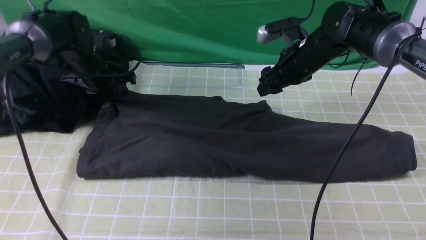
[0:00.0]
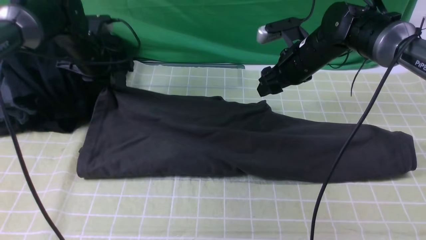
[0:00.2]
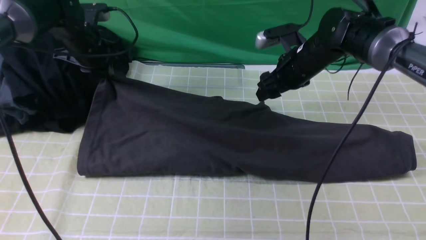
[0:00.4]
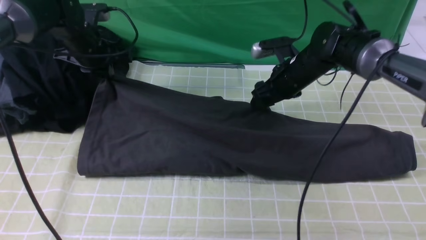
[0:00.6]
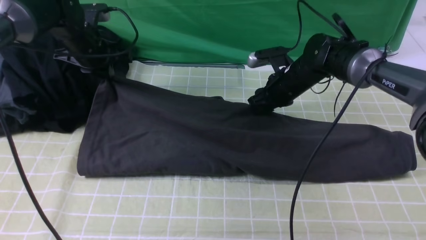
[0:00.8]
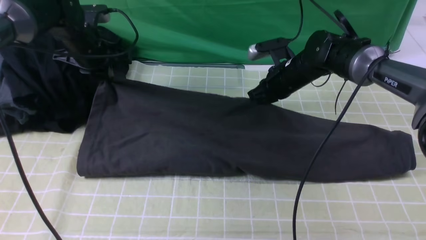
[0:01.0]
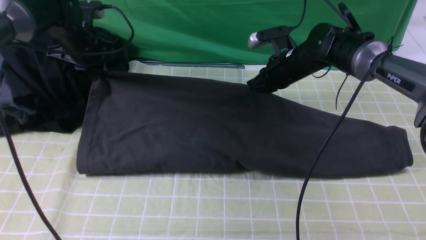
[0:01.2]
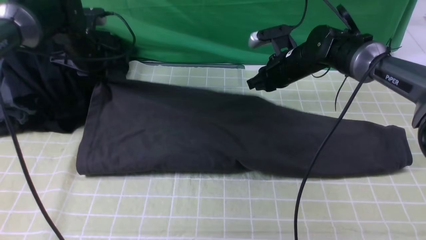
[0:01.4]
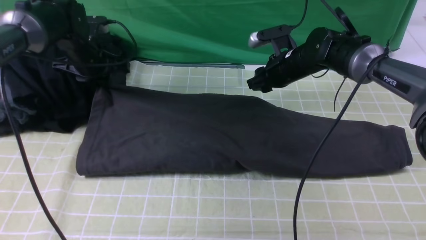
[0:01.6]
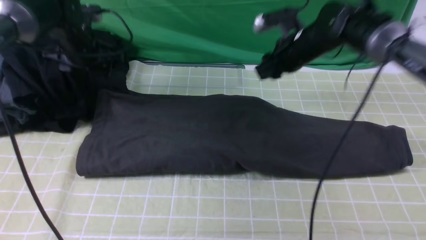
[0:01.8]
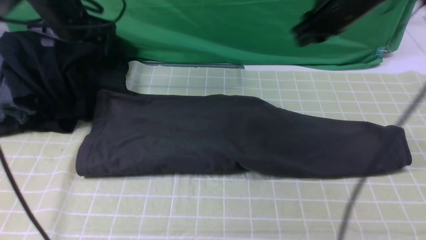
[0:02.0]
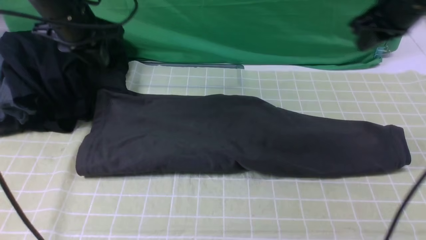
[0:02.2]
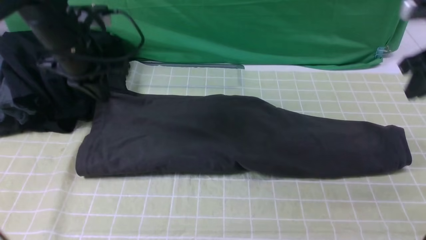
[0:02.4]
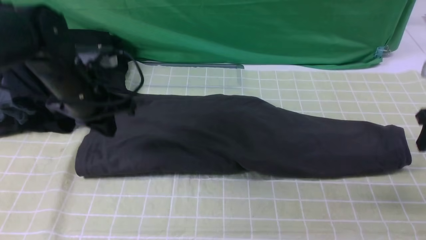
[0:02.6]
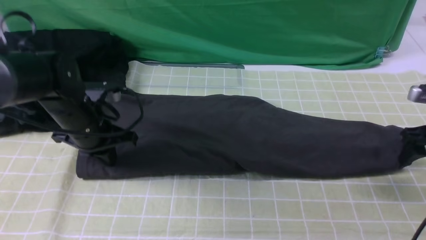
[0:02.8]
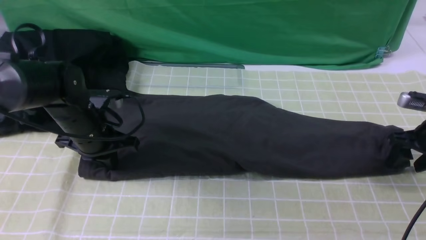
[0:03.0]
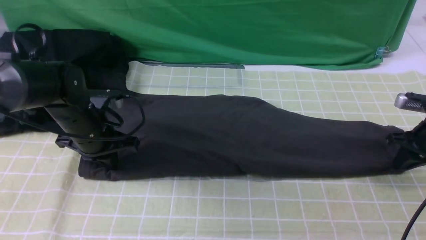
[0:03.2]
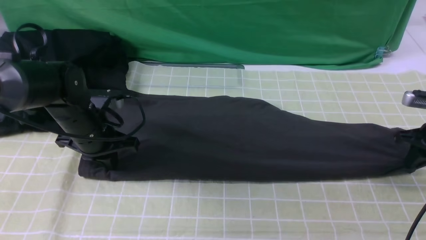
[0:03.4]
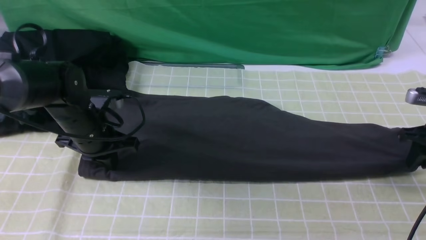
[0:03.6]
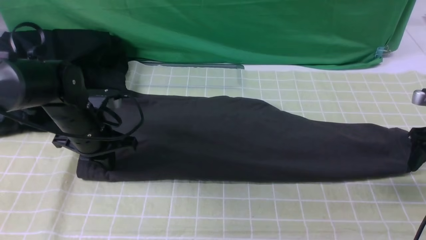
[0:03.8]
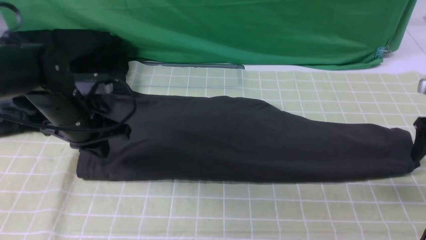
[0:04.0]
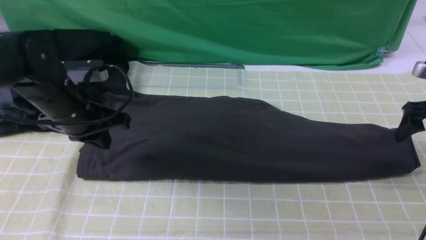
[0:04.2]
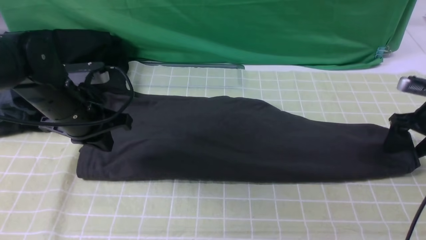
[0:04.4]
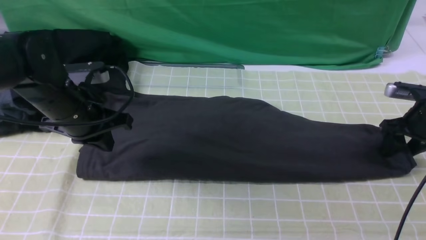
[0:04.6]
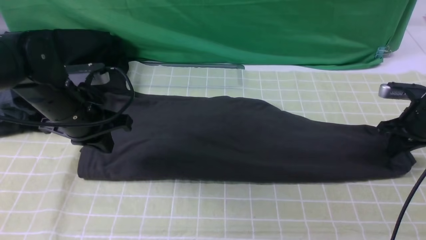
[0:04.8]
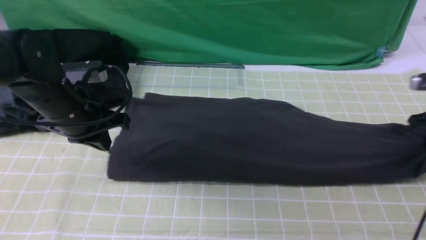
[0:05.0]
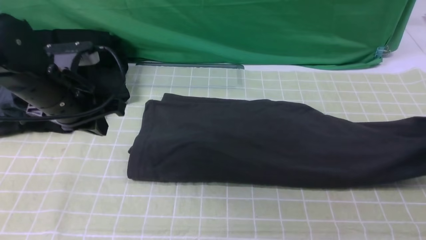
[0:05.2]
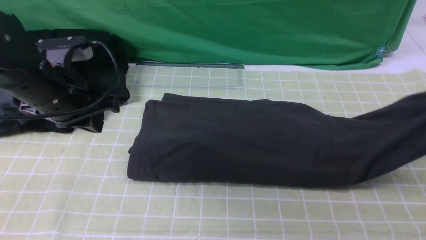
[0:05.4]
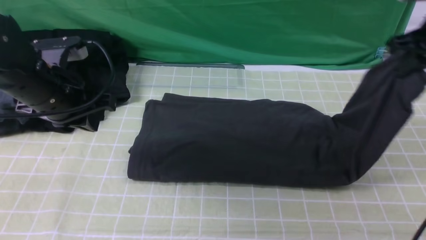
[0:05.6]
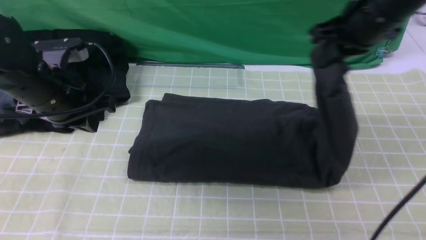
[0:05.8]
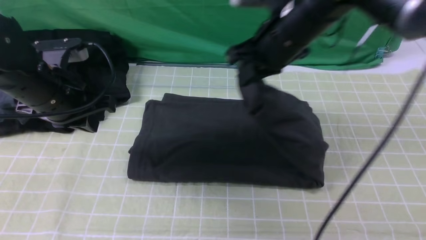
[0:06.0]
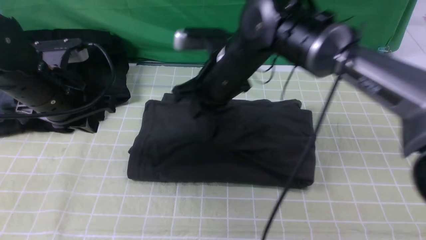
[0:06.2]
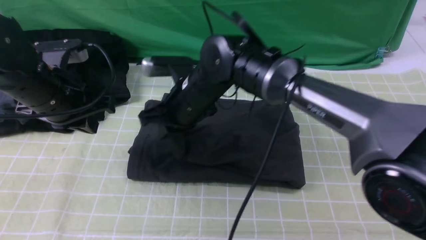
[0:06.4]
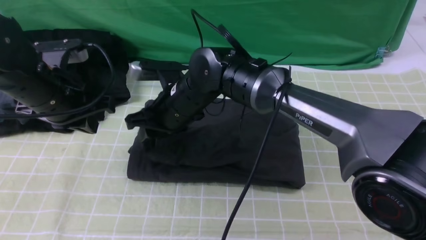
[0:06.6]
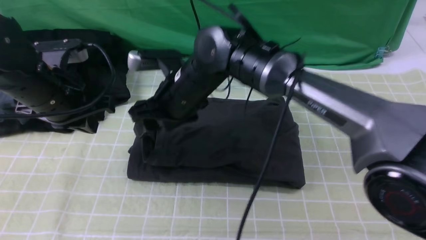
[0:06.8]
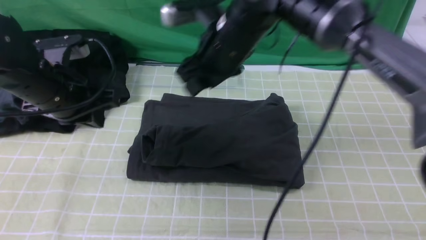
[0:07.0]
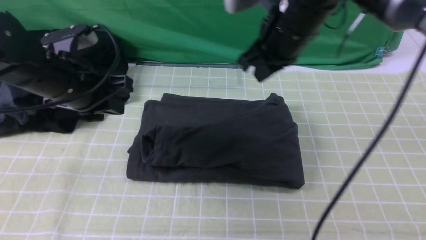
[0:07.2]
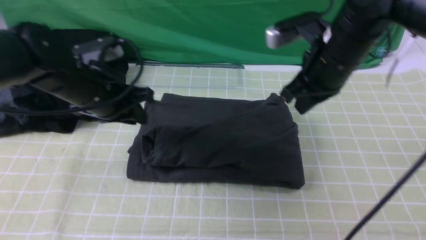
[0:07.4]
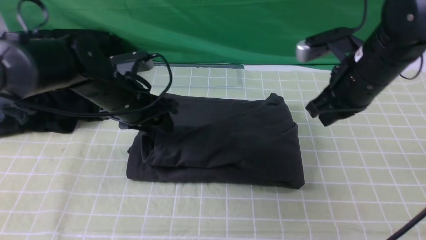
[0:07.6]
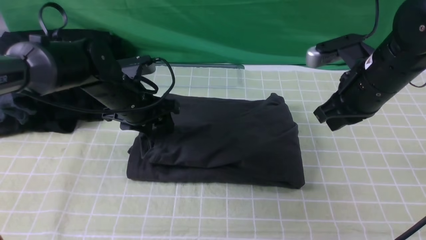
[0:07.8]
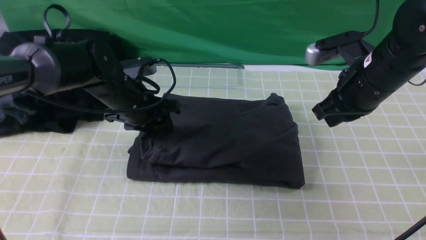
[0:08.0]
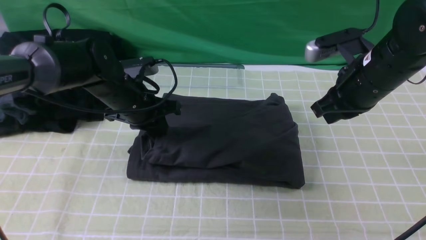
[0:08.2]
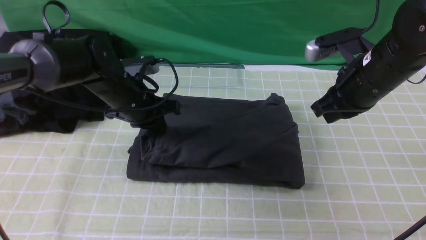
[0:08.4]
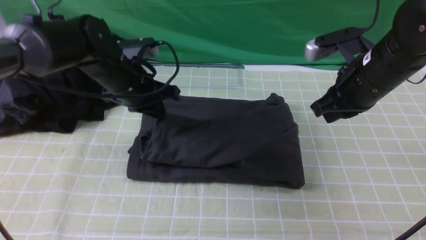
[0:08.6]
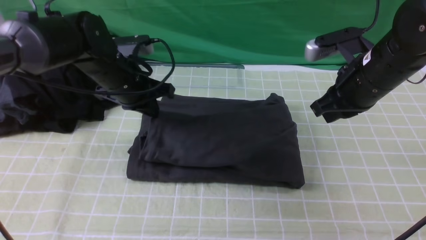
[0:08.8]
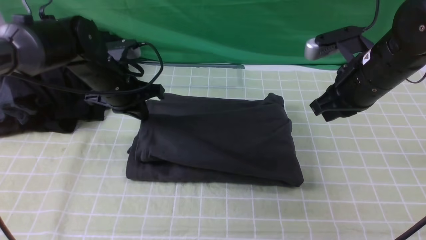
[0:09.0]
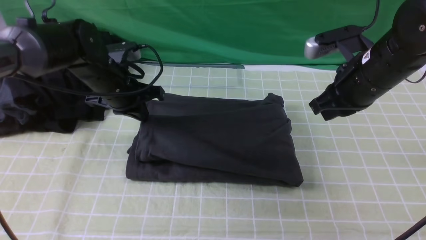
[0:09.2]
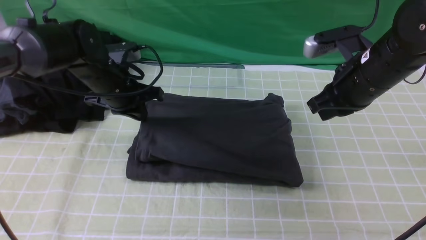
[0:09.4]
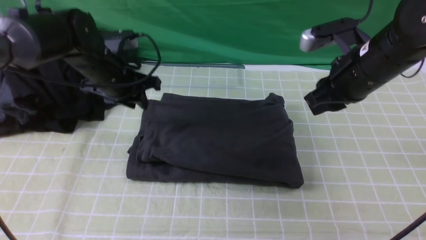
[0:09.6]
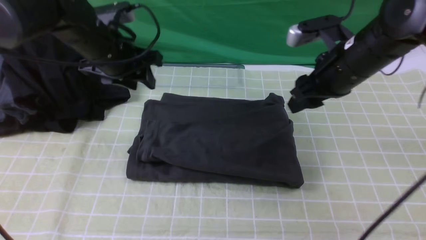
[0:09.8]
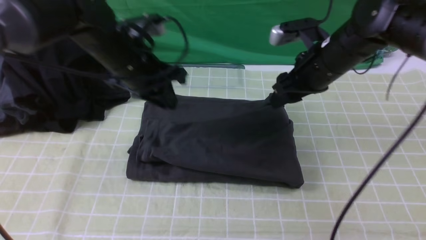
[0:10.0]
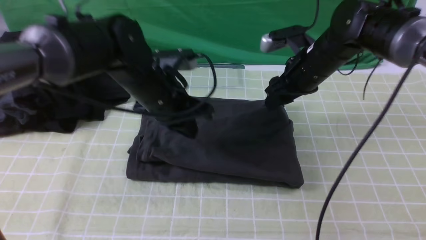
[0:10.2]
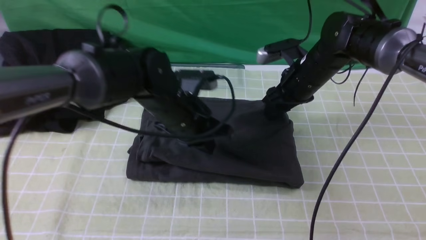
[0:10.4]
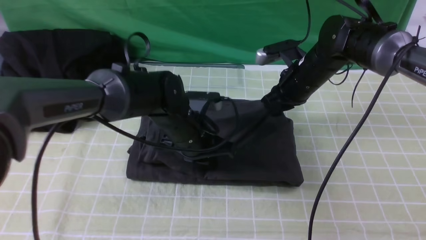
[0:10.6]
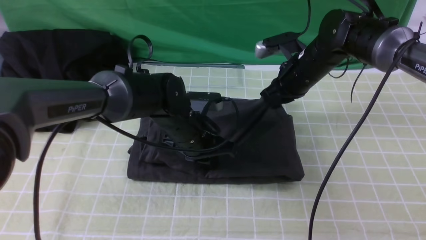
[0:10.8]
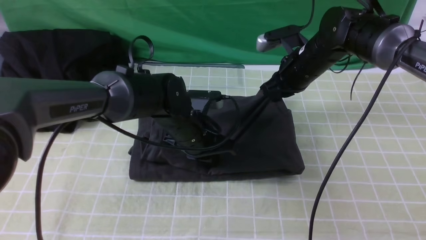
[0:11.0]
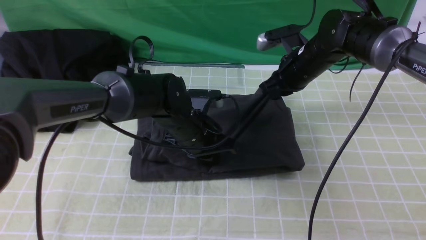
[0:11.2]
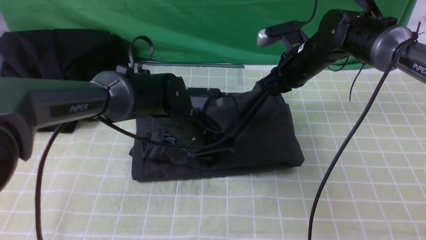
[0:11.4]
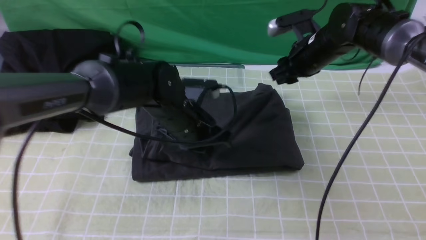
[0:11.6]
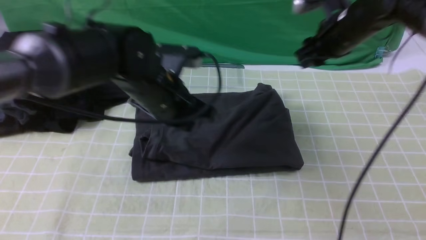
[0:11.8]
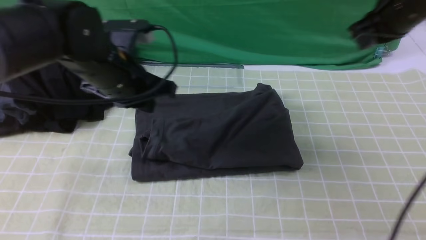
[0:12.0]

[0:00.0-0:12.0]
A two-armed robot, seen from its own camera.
Step, 0:02.0 to 0:04.6: use the right arm to clamp the right edge of the fabric.
Step, 0:05.0 to 0:06.8: use the right arm to drag the right edge of the fabric to the left and folds it over the left edge.
0:00.0 to 0:01.6: The right gripper closes.
0:01.6 to 0:03.0: The left gripper moves backward and downward, approximately 15 cm, and closes up; the right gripper is displaced to the right and backward by roughly 30 cm.
0:03.0 to 0:04.4: The right gripper closes, then opens again; the left gripper travels upward by approximately 5 cm.
0:04.4 to 0:06.0: The right gripper is displaced to the left and upward by roughly 35 cm, and closes its fingers.
0:06.0 to 0:07.6: The right gripper is displaced to the right by some 10 cm, and opens and closes again. Meanwhile the left gripper travels to the right, forward and downward by roughly 10 cm, and opens up.
0:07.6 to 0:09.0: The left gripper closes.
0:09.0 to 0:10.4: The left gripper shifts approximately 15 cm to the right and backward, and opens, then closes once more. Meanwhile the right gripper goes about 10 cm forward and downward, and opens up.
0:10.4 to 0:12.0: The right gripper heads upward and to the right, covering about 20 cm, and closes up, while the left gripper travels to the left and upward by some 10 cm.

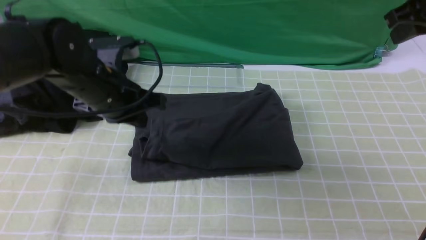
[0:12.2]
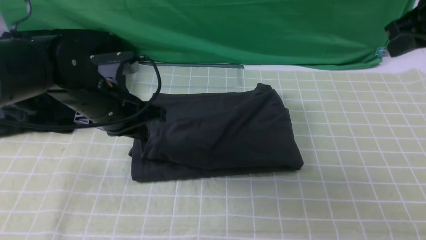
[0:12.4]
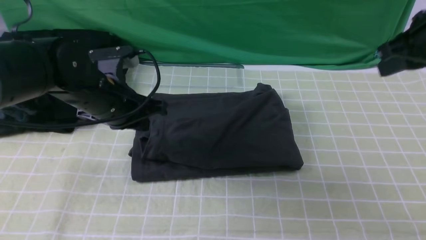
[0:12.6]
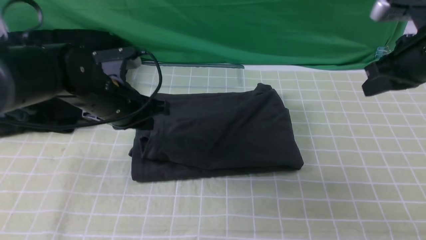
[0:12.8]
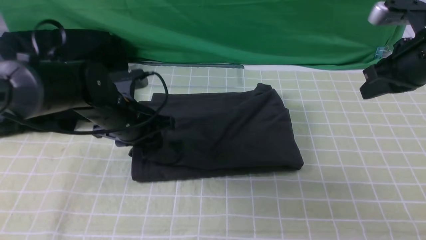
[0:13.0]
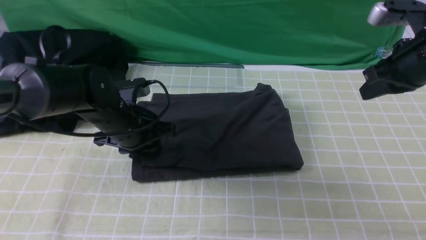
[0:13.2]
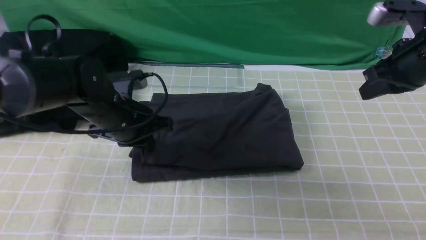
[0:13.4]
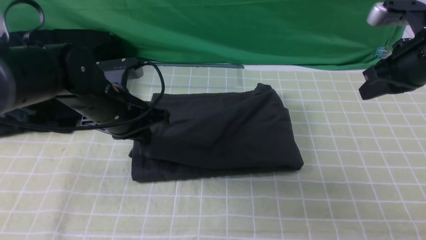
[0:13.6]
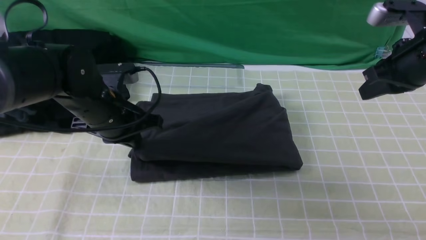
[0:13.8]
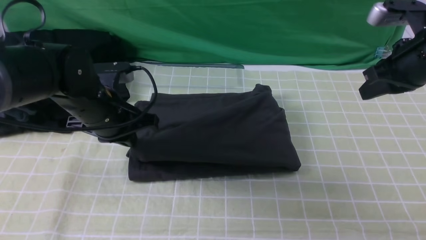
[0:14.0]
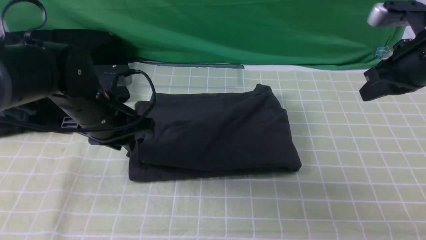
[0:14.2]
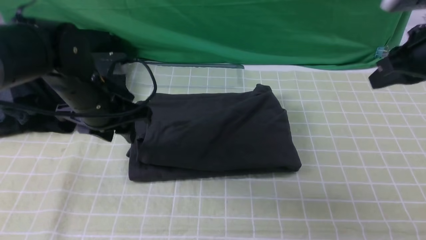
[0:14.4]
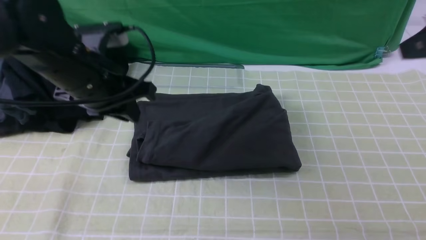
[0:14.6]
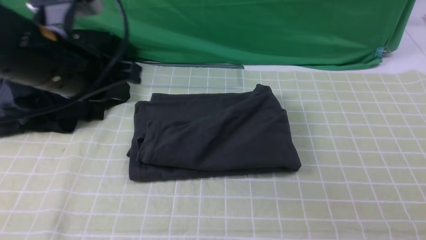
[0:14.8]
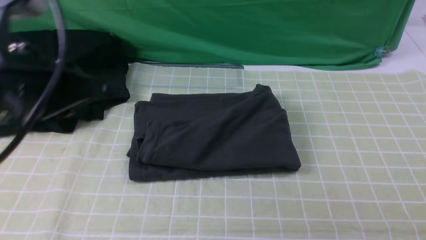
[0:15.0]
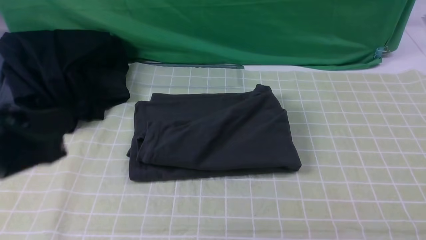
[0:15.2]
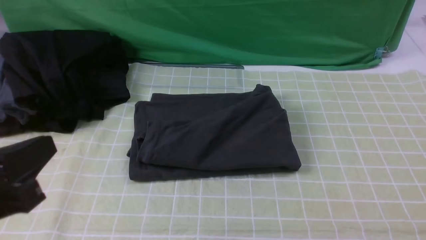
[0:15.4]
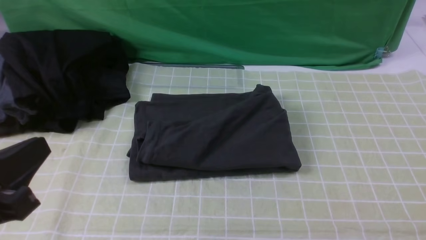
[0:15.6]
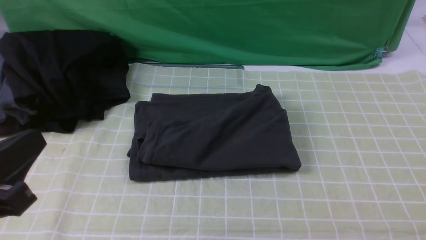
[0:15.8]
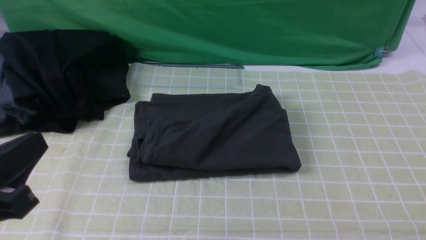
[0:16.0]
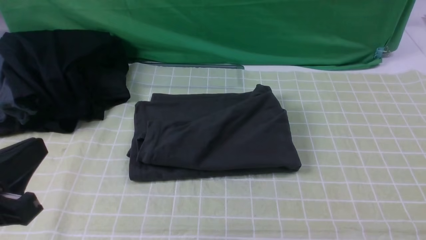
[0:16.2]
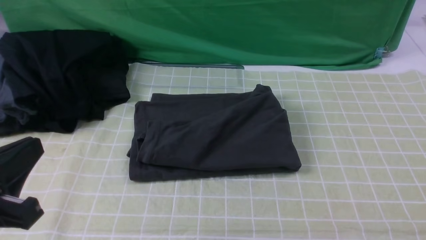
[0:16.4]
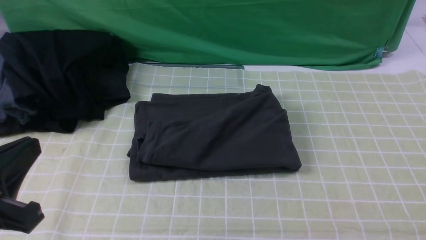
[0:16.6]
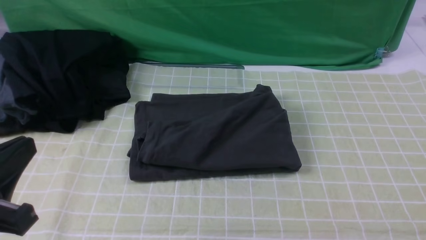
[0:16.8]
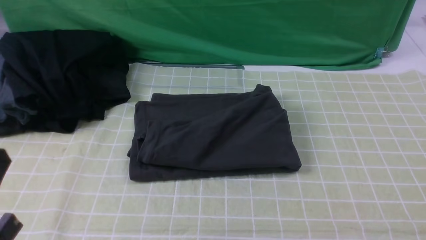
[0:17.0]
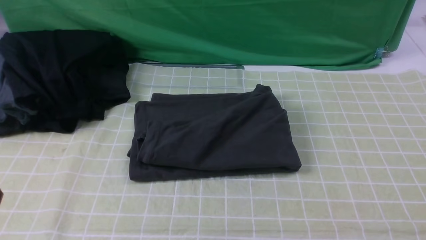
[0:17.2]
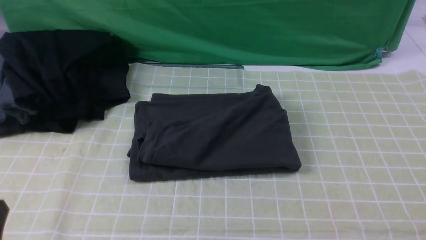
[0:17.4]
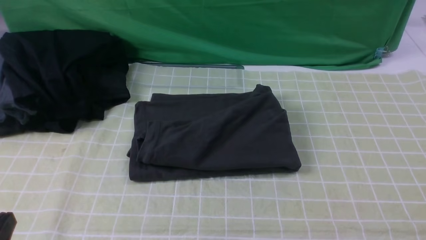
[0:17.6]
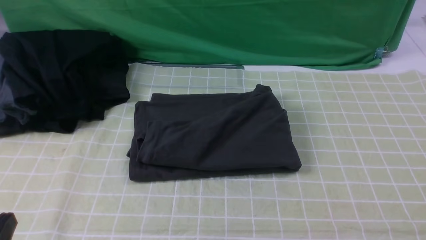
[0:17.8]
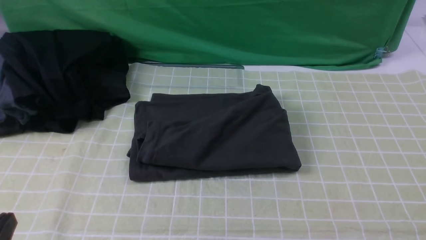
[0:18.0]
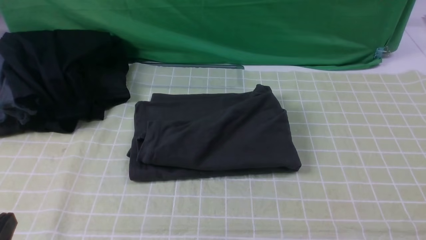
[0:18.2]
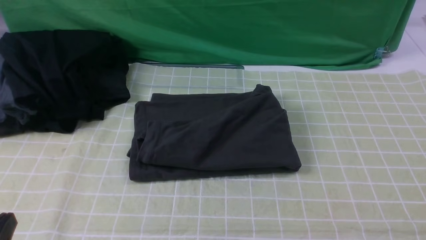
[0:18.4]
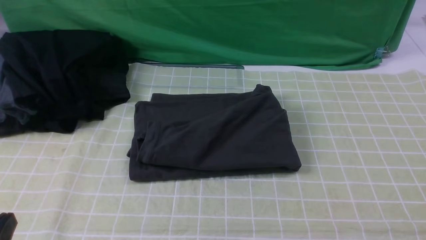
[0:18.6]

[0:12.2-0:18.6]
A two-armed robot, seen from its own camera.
0:12.2 to 0:13.8: The left gripper opens, then closes again, while the right gripper heads downward, covering some 5 cm.
0:13.8 to 0:15.4: The right gripper heads backward, covering about 35 cm. Meanwhile the left gripper shifts roughly 25 cm backward, and opens, then closes once more.
0:15.4 to 0:17.0: The left gripper is displaced downward by approximately 5 cm.
